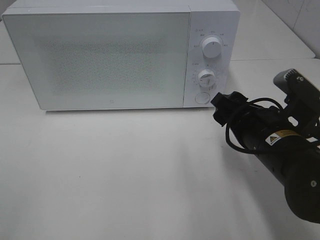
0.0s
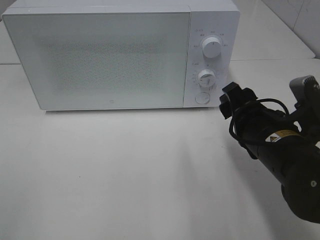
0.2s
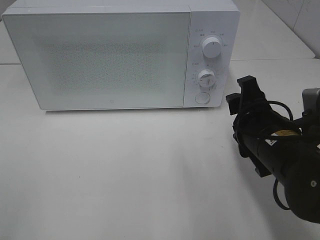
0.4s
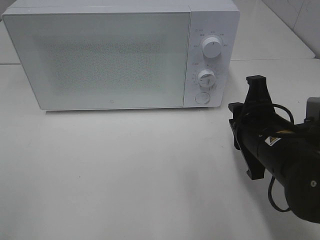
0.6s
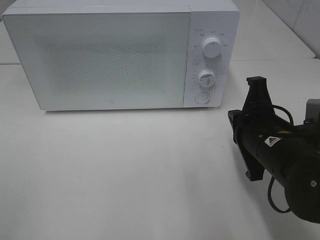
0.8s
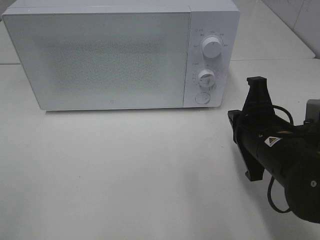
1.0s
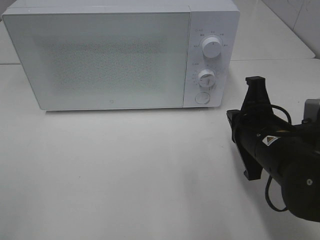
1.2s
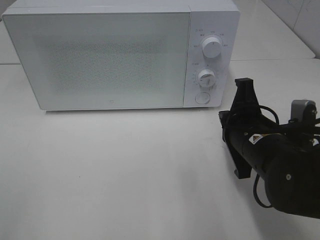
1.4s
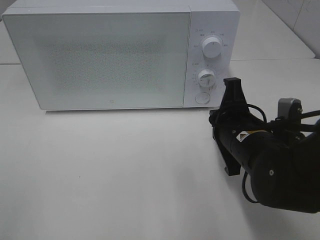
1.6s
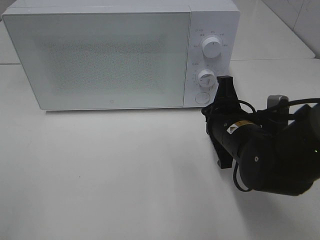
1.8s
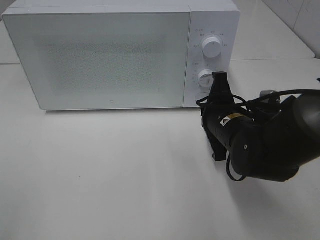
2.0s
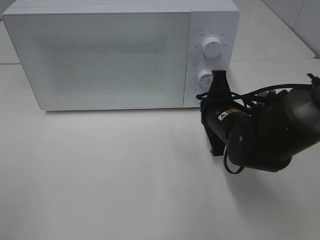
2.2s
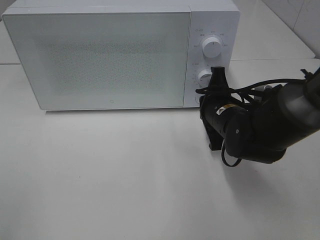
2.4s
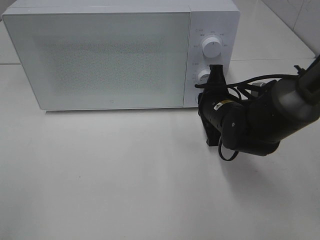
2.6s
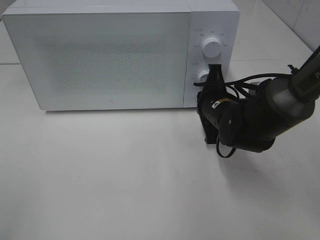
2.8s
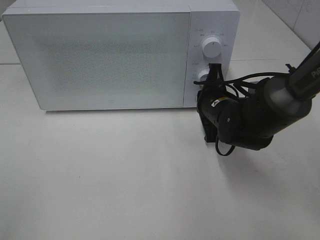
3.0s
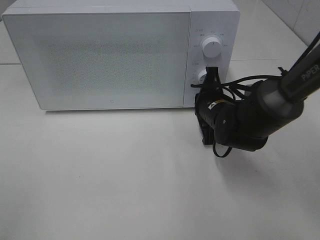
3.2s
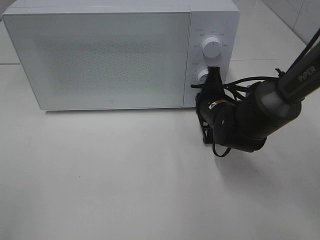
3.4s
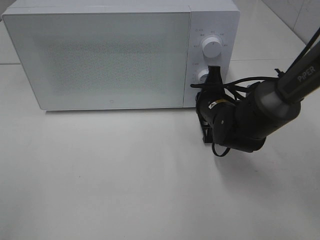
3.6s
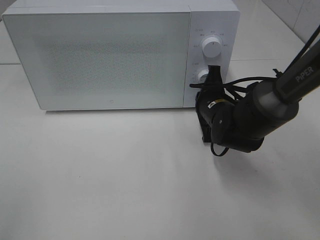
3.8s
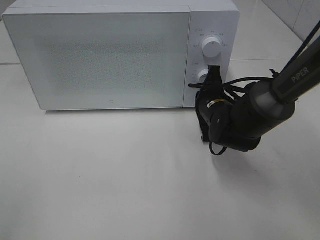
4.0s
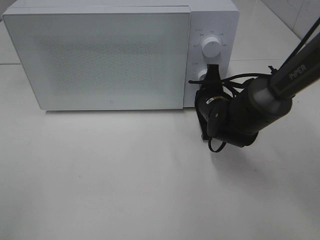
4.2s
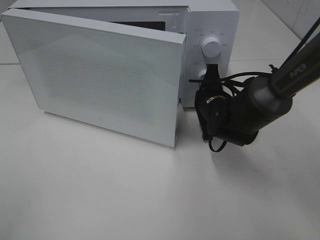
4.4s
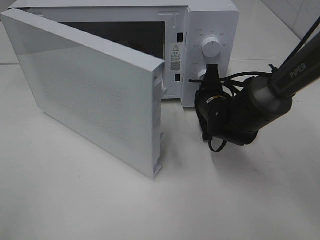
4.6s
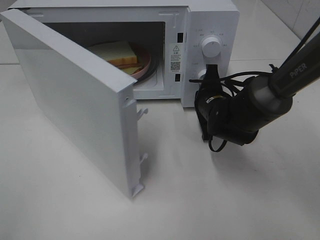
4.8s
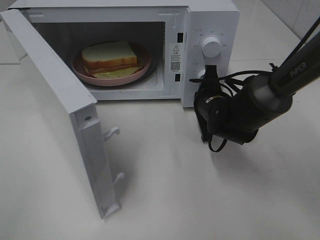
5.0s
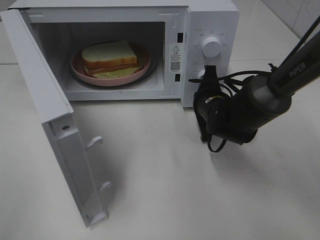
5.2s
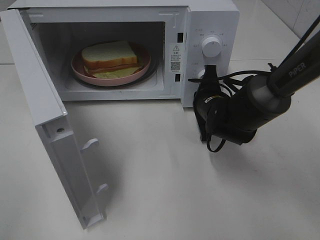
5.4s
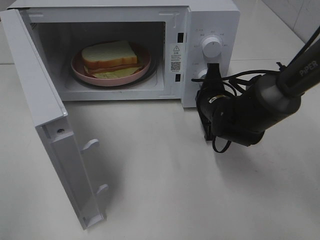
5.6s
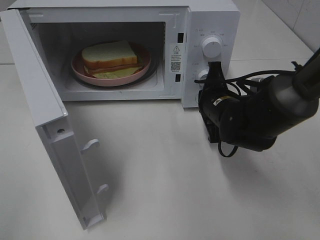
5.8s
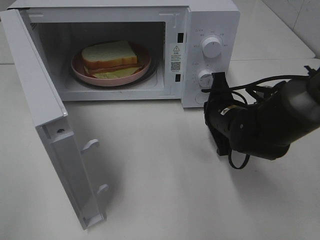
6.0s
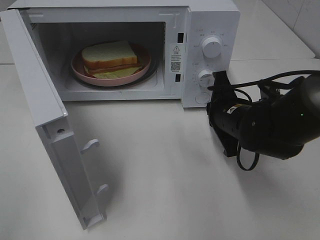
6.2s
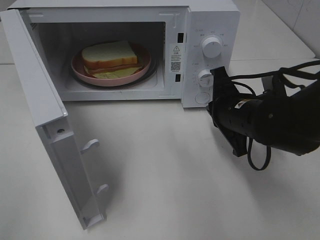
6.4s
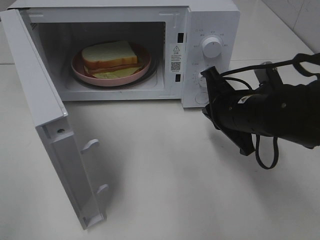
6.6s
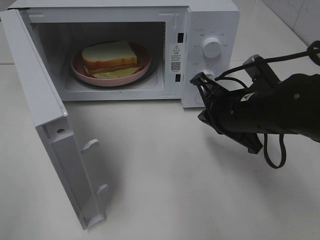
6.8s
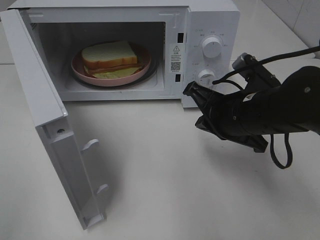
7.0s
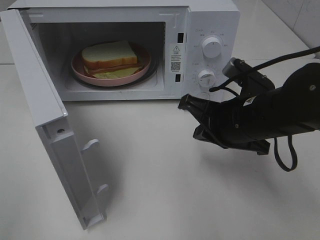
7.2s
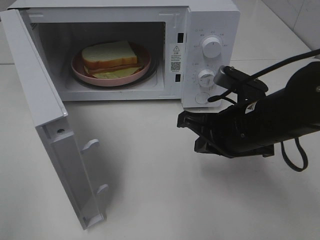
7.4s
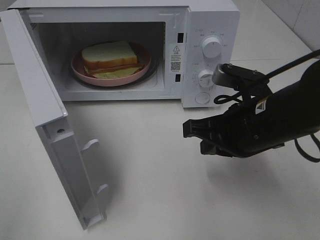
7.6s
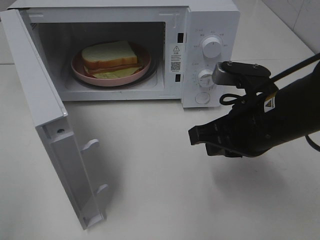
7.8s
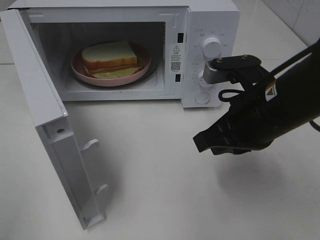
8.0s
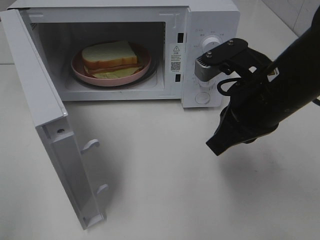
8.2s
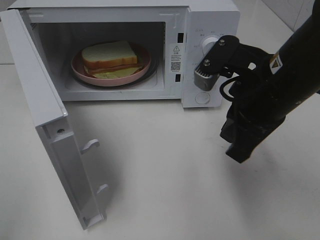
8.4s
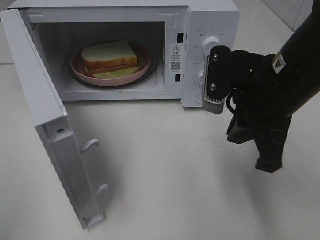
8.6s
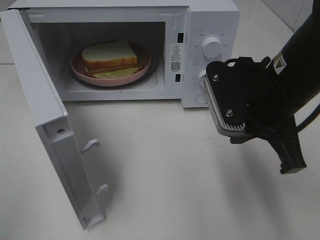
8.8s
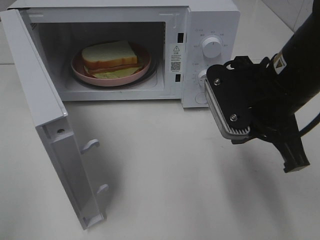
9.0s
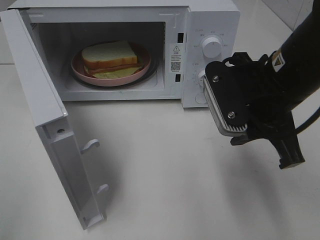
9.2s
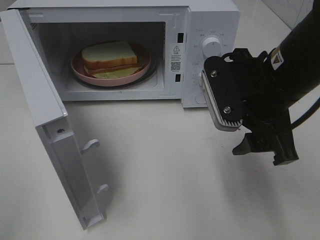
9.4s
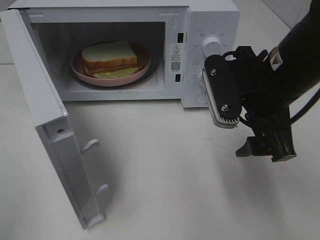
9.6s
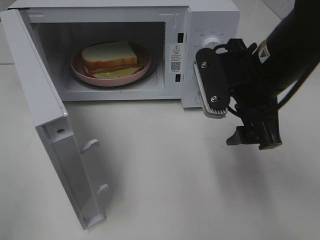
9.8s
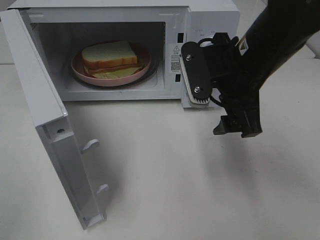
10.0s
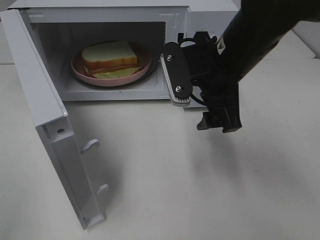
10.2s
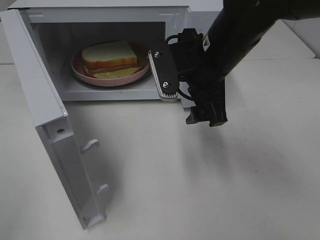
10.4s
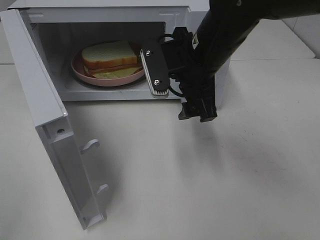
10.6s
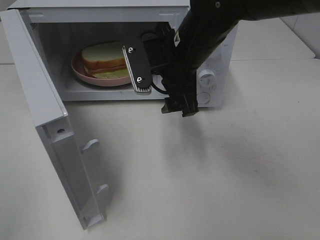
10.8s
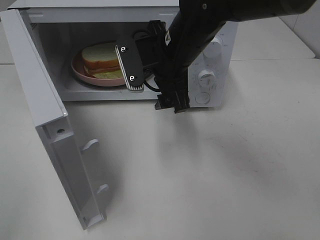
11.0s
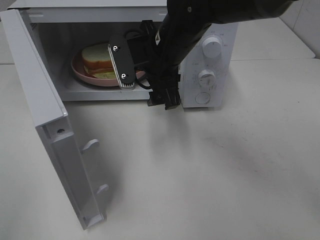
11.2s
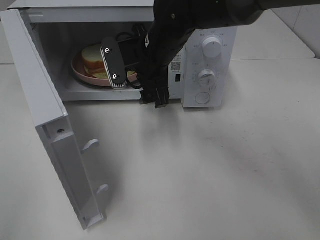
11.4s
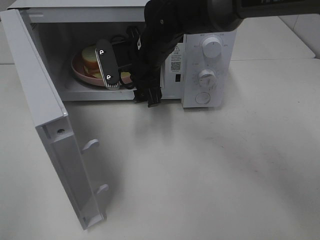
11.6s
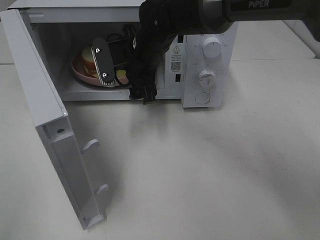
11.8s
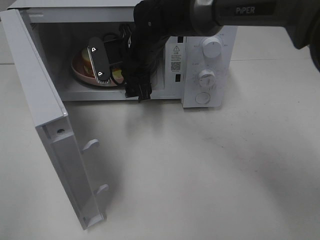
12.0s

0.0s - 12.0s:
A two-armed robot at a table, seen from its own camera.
Task of the whole recording: Heat Sandwich.
Step, 0.0s - 6.2s: Right hand: press the switch.
0.0s - 1.6s: The right gripper closes.
1.6s - 3.0s: The right gripper shifts roughly 10 cm forward.
3.0s - 4.4s: There are only small adjustments of the grippers.
4.4s - 6.0s: The right gripper goes roughly 5 cm backward.
6.0s - 7.6s: The right gripper moves backward and upward, roughly 10 cm.
7.6s - 9.0s: The right gripper goes some 5 cm upward.
9.0s - 10.4s: The right gripper goes some 10 cm forward and to the left, and opens up.
10.4s - 12.0s: The right gripper travels to the left and forward by about 15 cm.

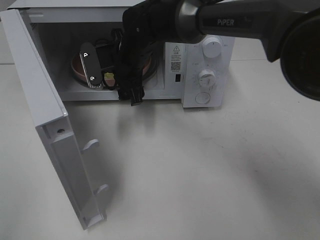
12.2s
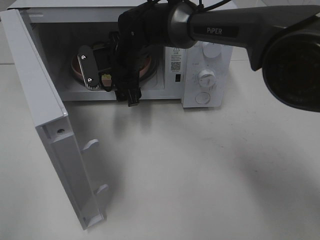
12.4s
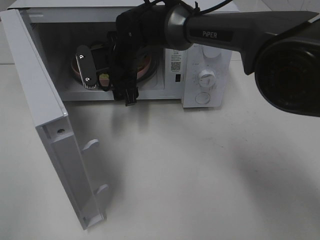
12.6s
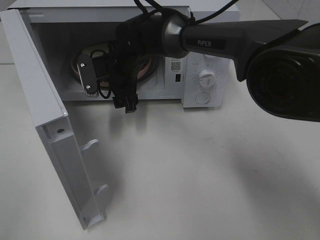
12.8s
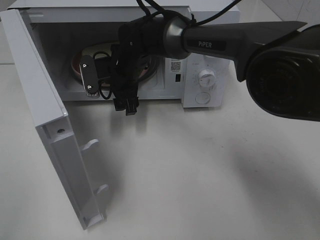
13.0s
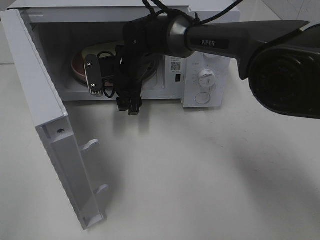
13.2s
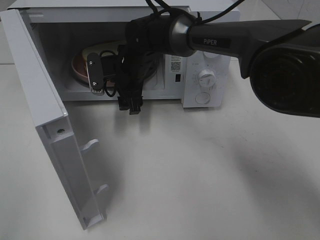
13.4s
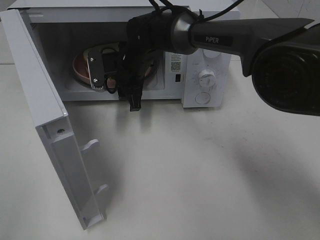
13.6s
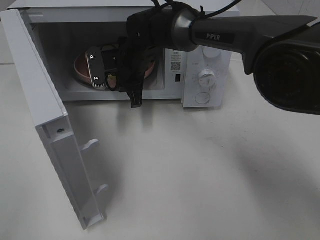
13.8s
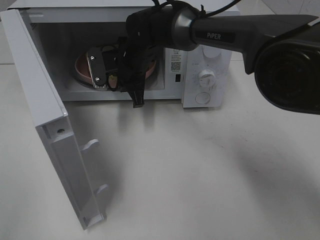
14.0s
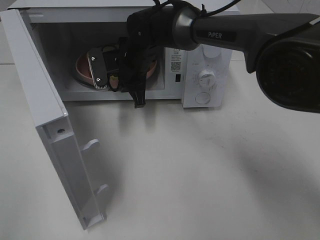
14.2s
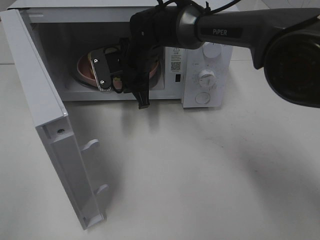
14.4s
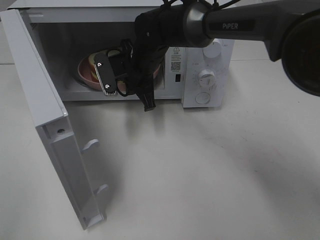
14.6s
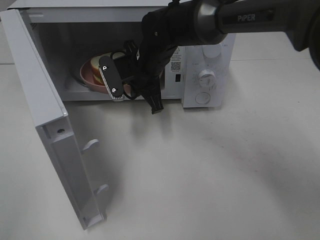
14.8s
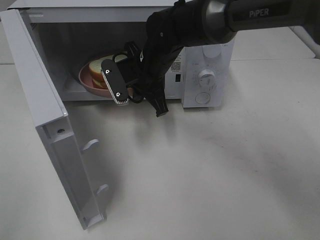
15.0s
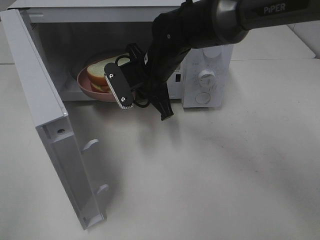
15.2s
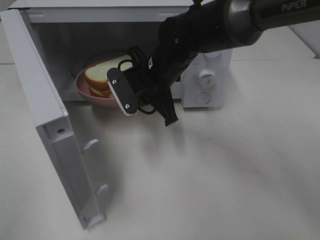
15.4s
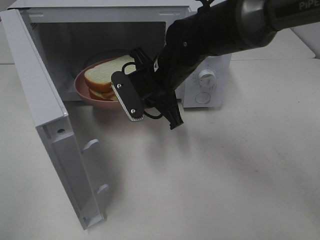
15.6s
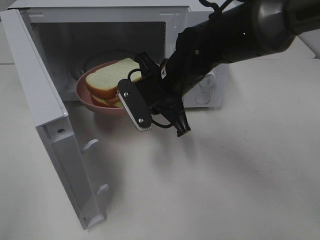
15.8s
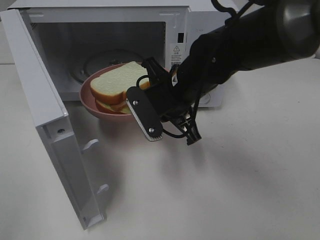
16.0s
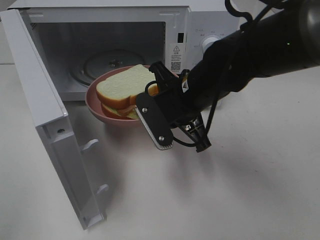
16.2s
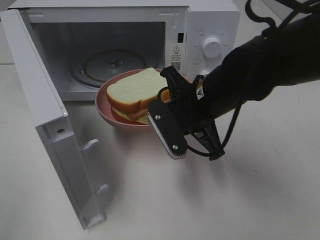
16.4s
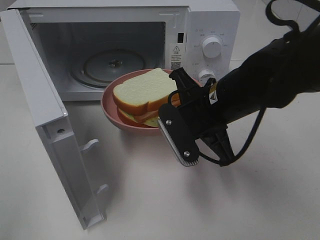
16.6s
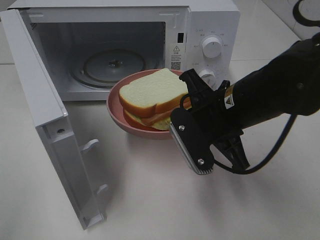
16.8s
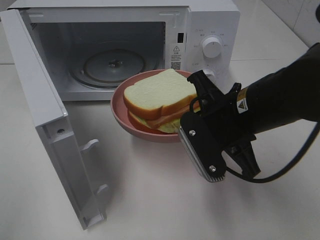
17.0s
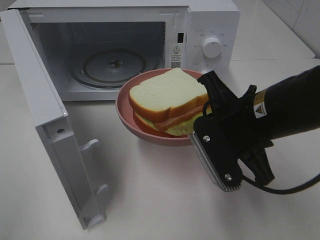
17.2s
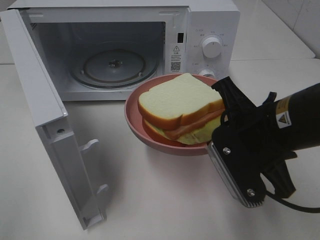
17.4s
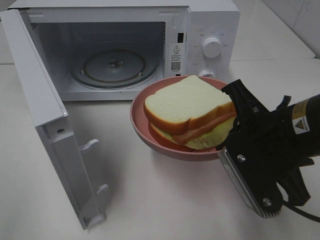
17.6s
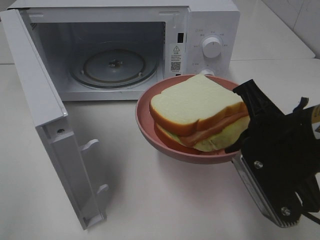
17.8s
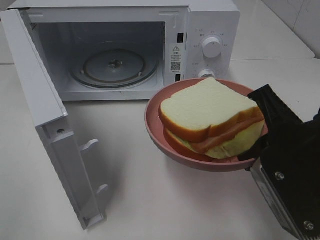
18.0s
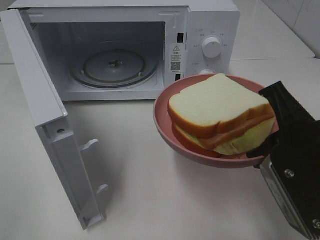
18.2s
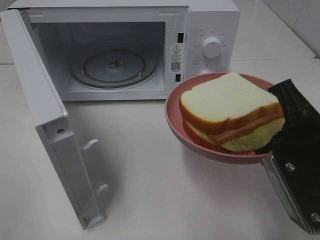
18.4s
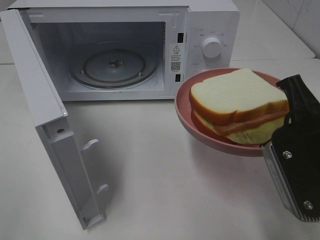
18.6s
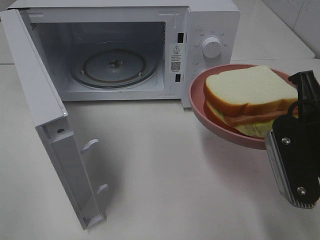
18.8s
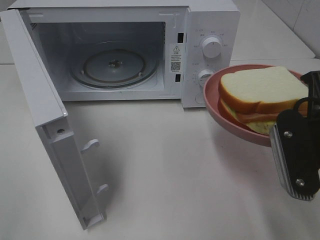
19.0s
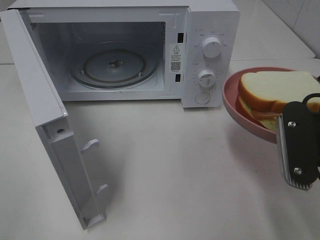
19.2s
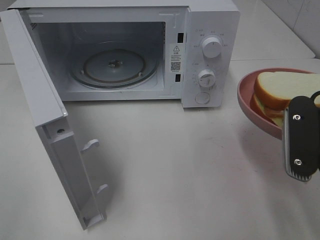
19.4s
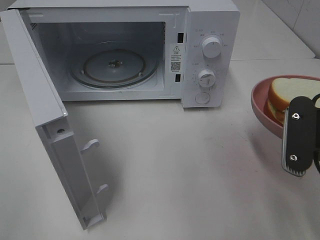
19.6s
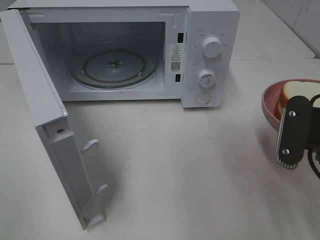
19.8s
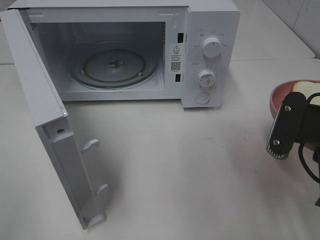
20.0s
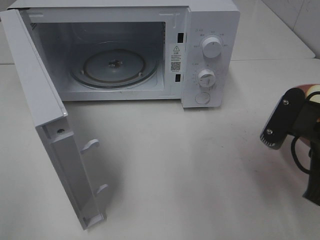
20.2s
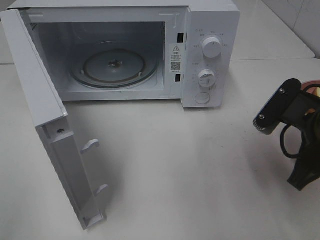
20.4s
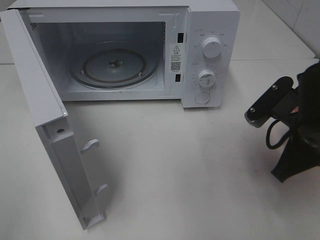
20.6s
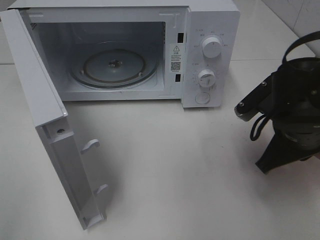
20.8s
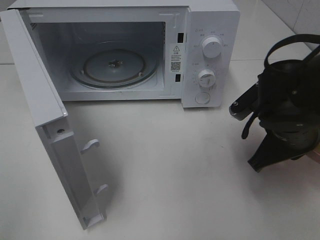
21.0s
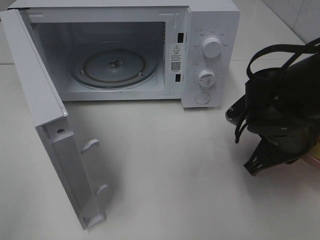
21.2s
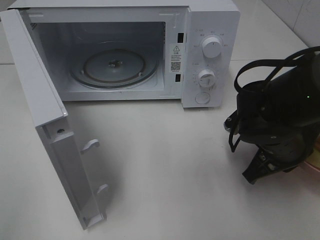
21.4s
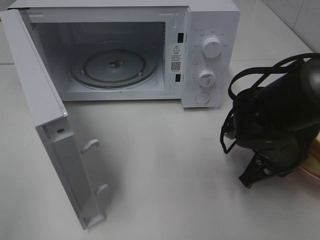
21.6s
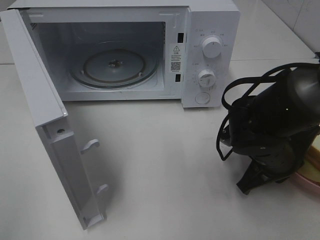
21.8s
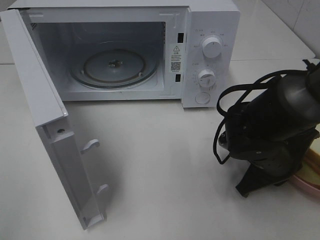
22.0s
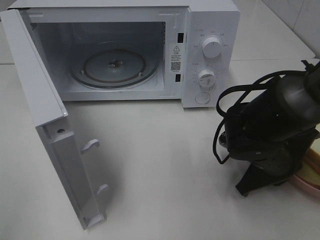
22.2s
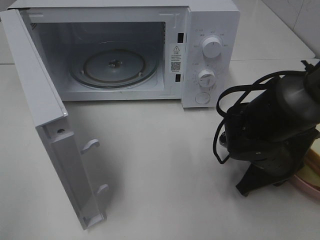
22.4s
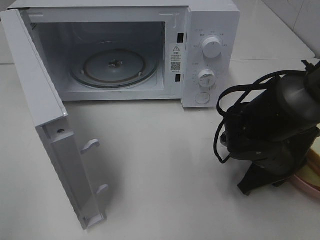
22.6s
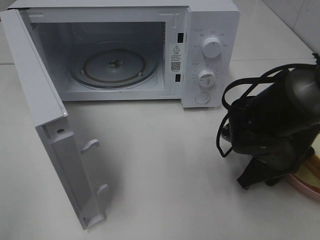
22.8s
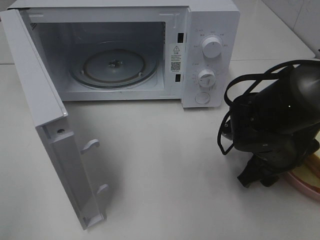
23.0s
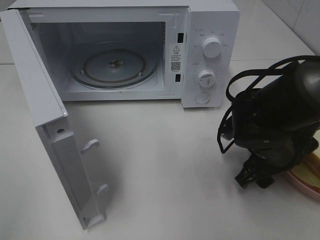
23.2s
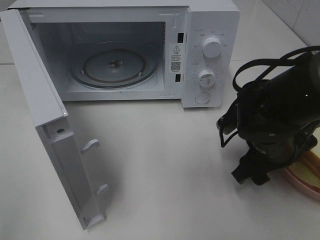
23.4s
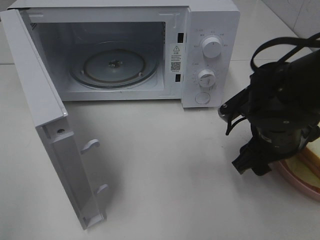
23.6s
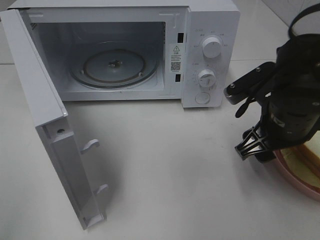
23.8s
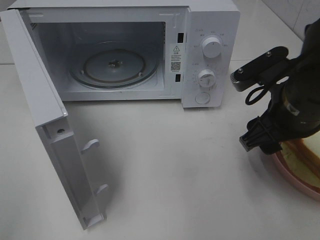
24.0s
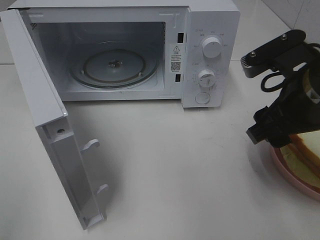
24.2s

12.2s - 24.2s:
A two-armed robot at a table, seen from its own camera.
Task of the whole recording: Heat Sandwich.
Step, 12.2s - 14.6s: Right hand: grab the plate with the sandwich.
Step, 14.8s - 24.2s: Right hand: place the plate on the table.
12.2s - 13.8s: The right gripper closes its fingers.
13.8s - 15.2s: The right gripper is displaced backward by roughly 5 cm.
15.2s - 16.6s: The right gripper goes about 15 cm backward and to the right.
16.6s - 18.2s: The right gripper travels backward and to the right by roughly 15 cm.
19.8s - 21.2s: The right gripper shifts roughly 10 cm forward and downward.
21.2s - 22.6s: The right gripper heads downward, covering about 5 cm.
22.6s - 24.2s: The right gripper is displaced upward by about 15 cm, and opens its fingers.
